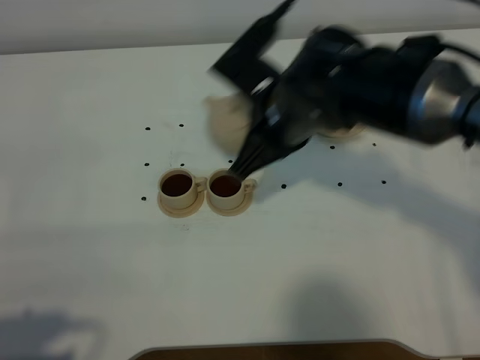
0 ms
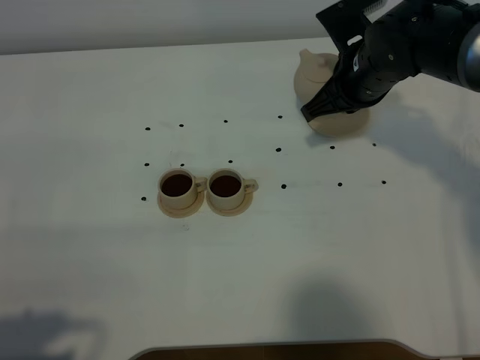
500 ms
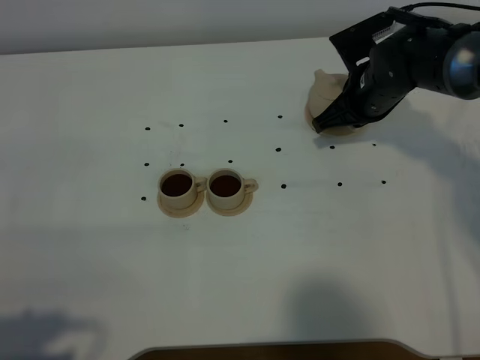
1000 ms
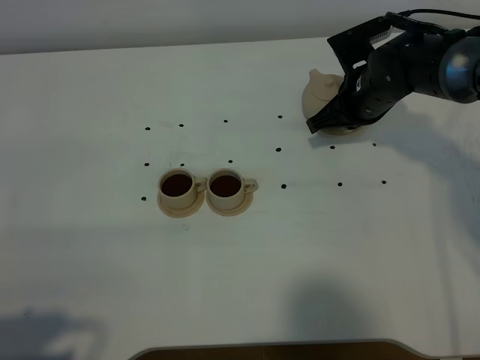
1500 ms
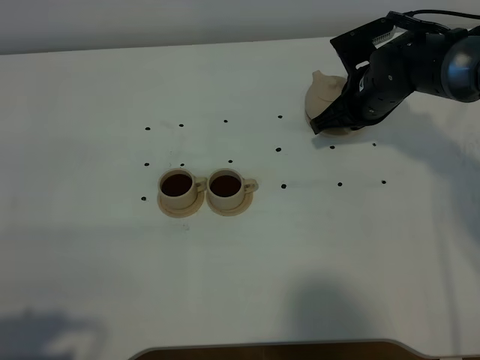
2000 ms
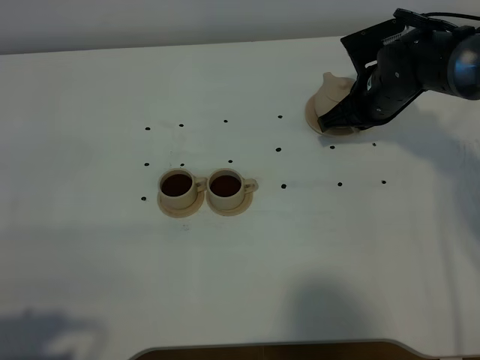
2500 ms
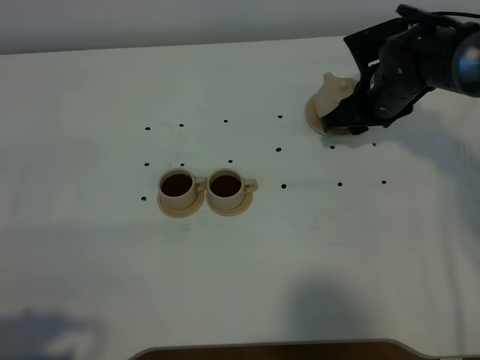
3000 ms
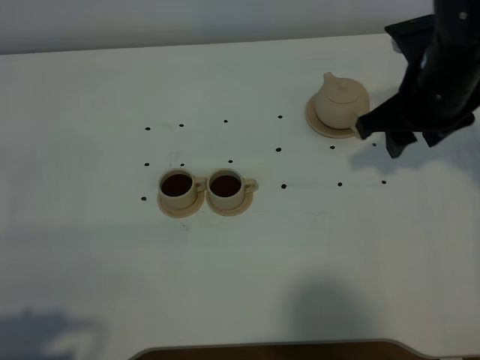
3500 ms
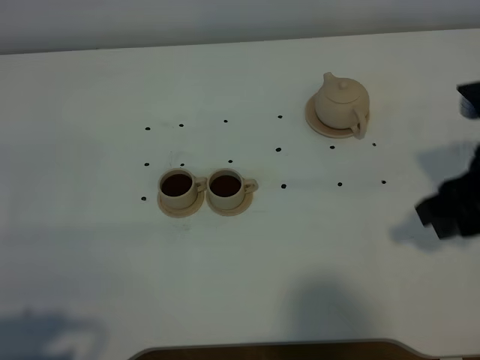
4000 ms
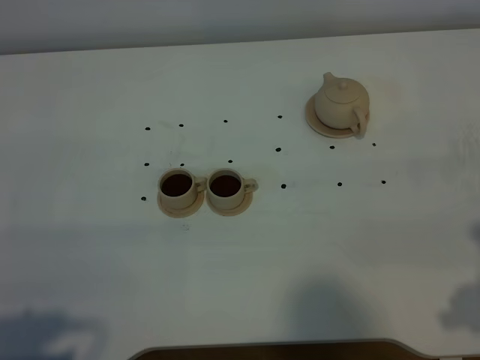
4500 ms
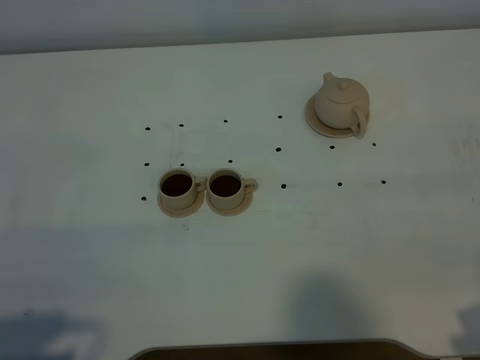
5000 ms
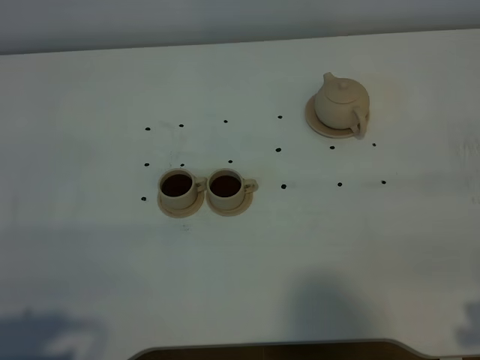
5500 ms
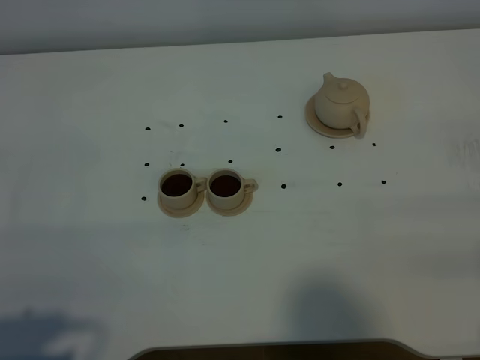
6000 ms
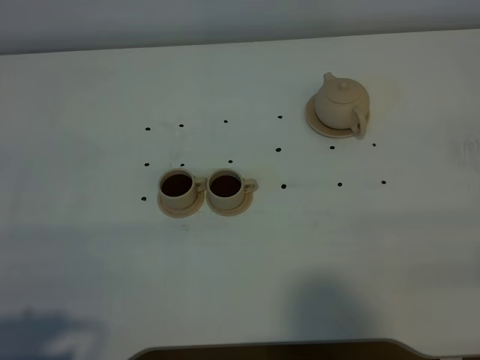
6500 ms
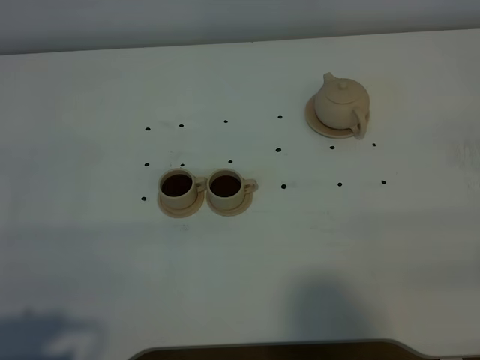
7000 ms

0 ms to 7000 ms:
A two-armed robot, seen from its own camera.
Task of the whole recording: grasp the brown teapot and pour the tea into the two brown teacups one by one, put the brown teapot back in its original place.
0 ms to 2000 ms: The right gripper is displaced to the right, downward and forward by roughly 15 cm.
2000 ms to 3500 ms: The right gripper goes some 15 cm upward and backward, and opens.
3500 ms to 5000 ms: The right gripper moves backward, some 25 cm.

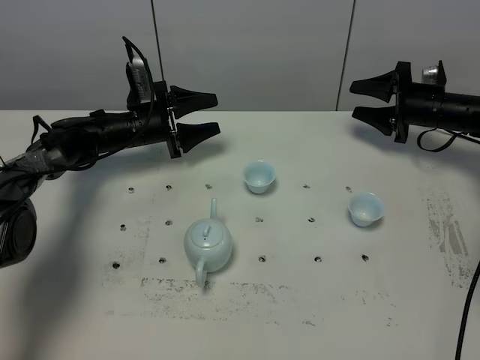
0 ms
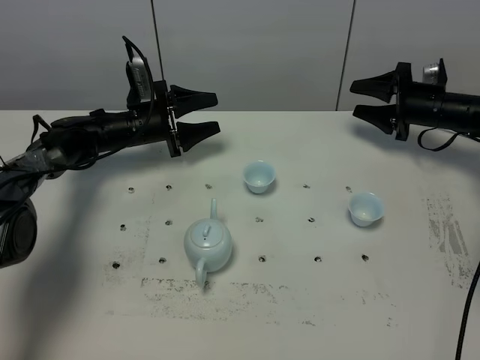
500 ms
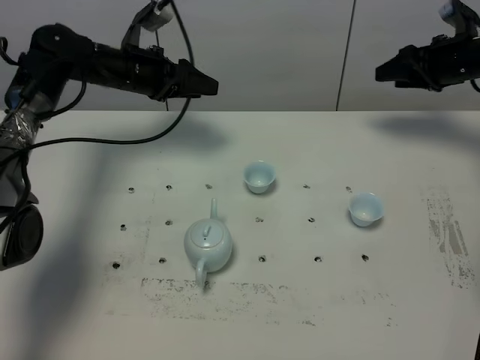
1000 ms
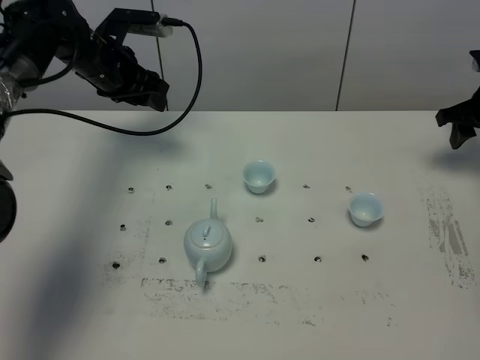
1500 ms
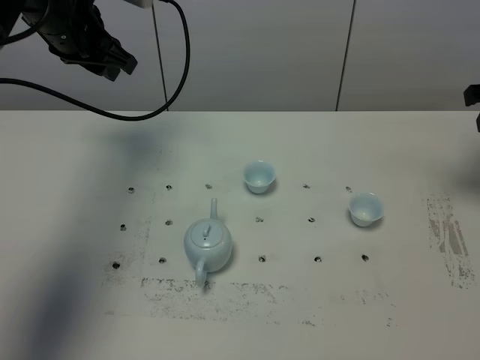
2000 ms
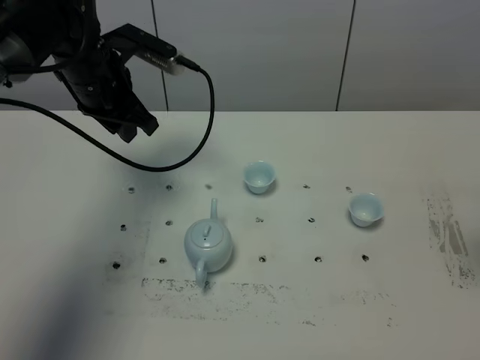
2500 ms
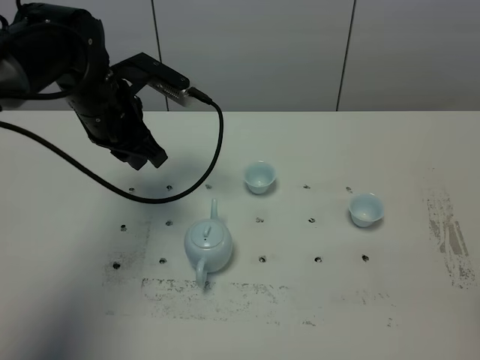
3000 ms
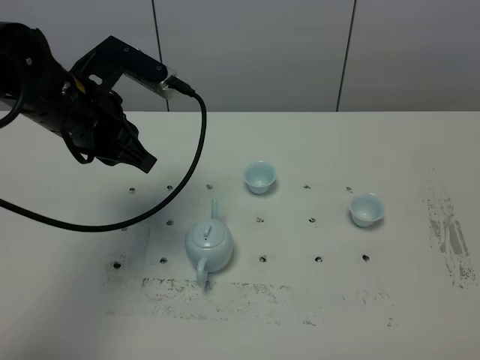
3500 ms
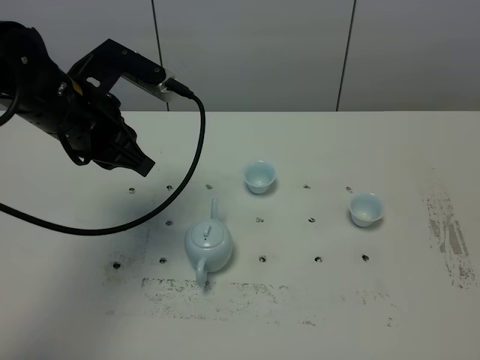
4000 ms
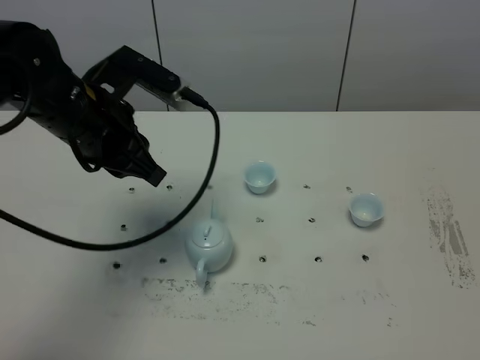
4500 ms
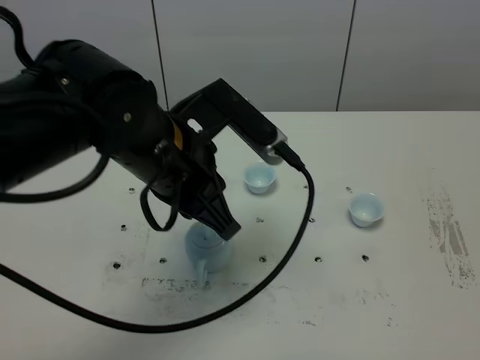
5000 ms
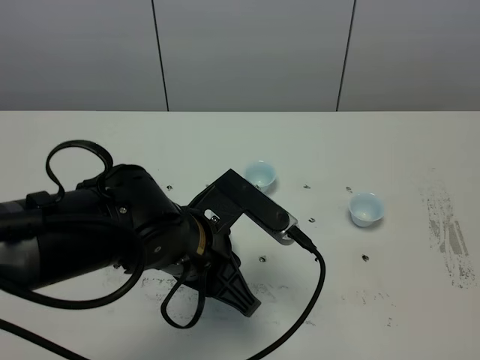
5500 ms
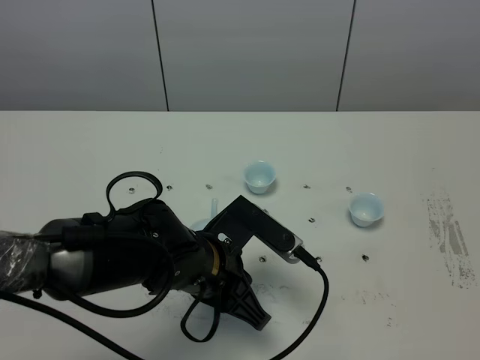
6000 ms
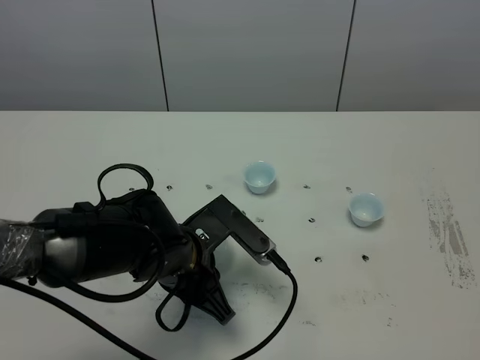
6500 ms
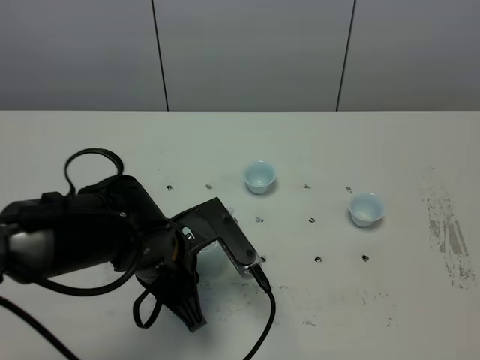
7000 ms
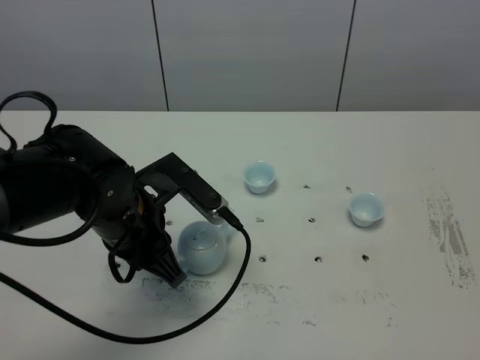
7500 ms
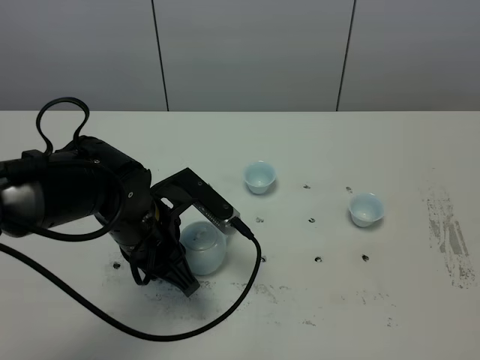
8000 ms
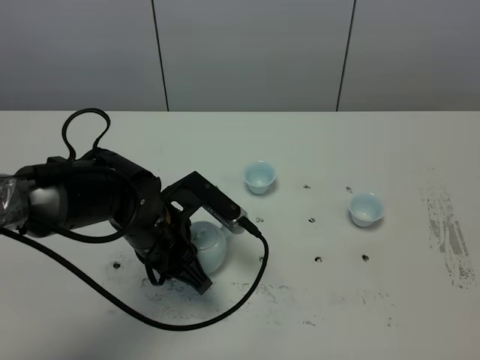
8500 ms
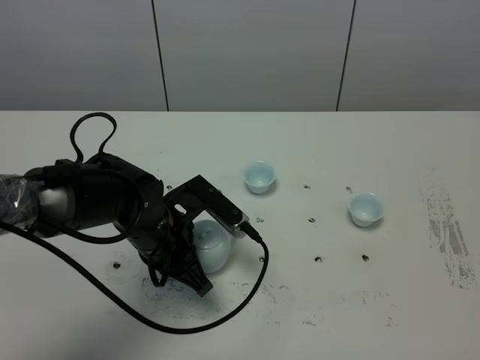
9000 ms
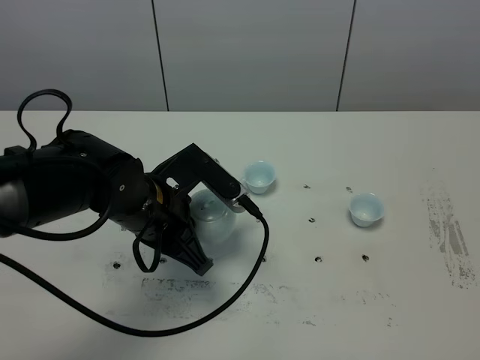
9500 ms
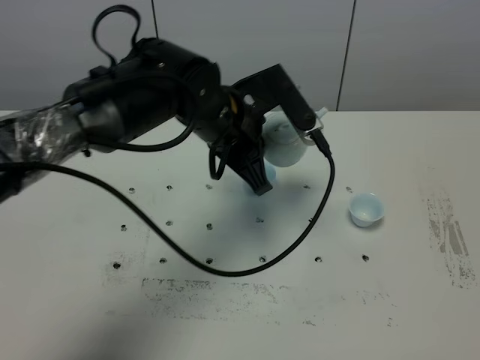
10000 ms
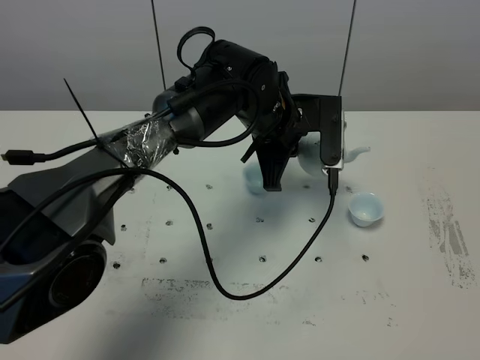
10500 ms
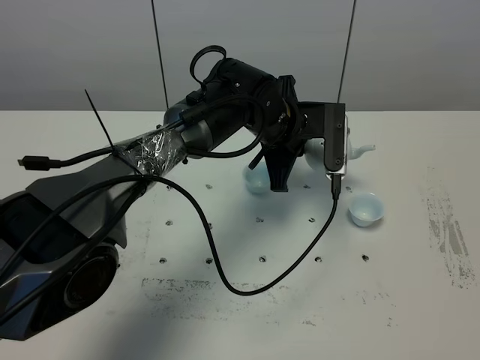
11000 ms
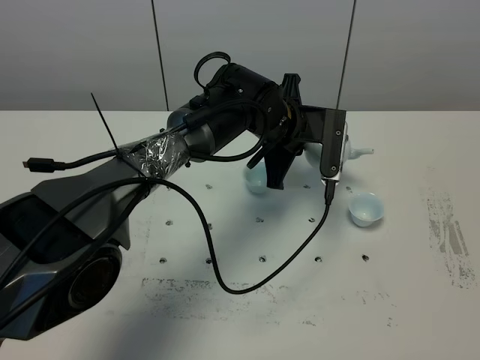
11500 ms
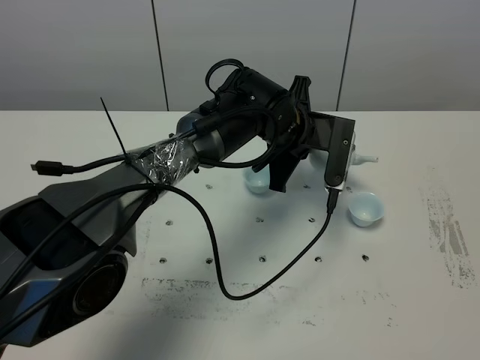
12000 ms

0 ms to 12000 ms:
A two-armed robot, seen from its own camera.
Task of the whole recording: grasp the blue porcelain teapot and pour the tea into the two blue porcelain teacups one by one, put the blue porcelain teapot back in its original place.
Step, 0 ms to 9000 ms: Pick up the teapot with the left gripper.
0 ms to 2000 ms: The right gripper is displaced upward and backward by roughly 20 cm, while the left gripper travels upward by about 25 cm, and closes.
2000 ms to 4000 ms: The left gripper is displaced backward by about 15 cm. The right gripper shifts roughly 40 cm backward.
4000 ms to 6000 ms: The left gripper goes approximately 20 cm to the right, downward and backward; the right gripper closes.
6000 ms to 8000 ms: The left gripper goes approximately 5 cm to the left.
8000 ms to 10000 ms: The left gripper moves to the right, forward and upward, about 15 cm.
10000 ms to 12000 ms: The left gripper moves to the right, downward and forward, approximately 10 cm.

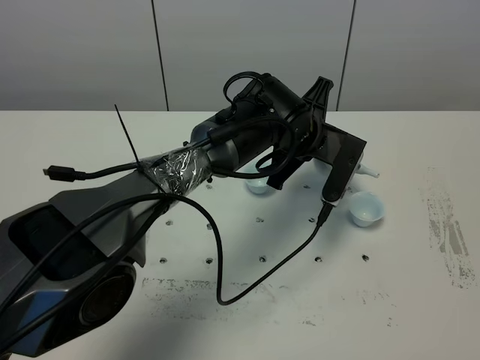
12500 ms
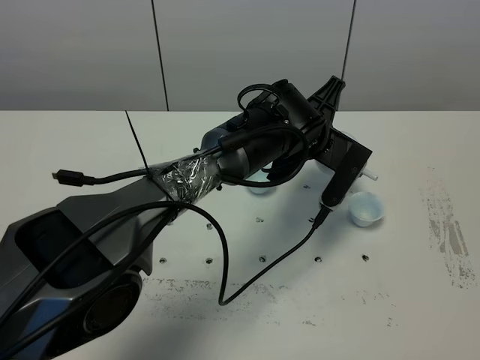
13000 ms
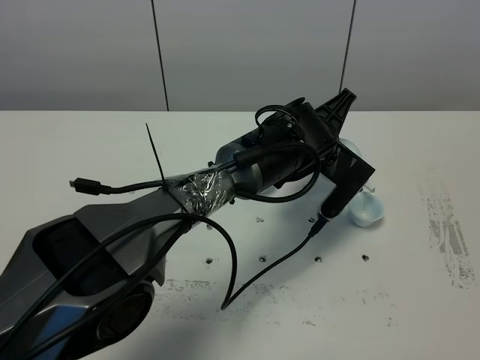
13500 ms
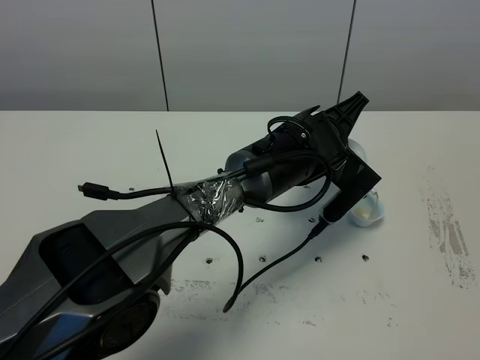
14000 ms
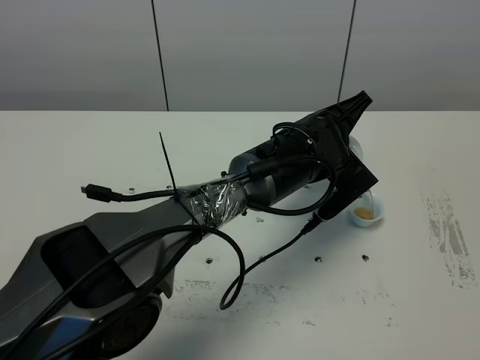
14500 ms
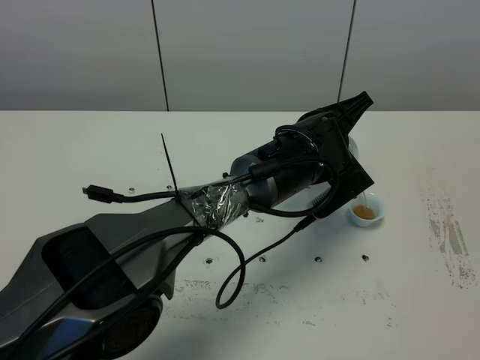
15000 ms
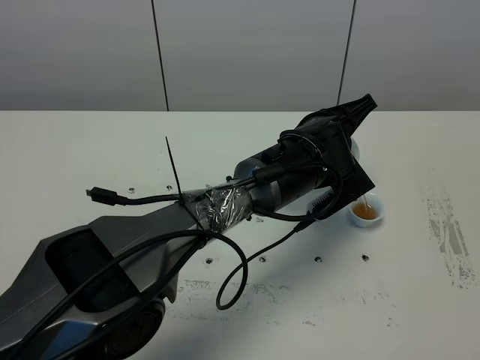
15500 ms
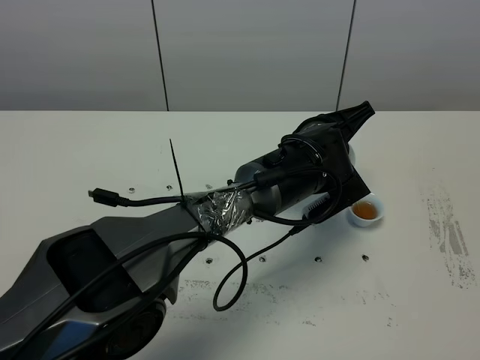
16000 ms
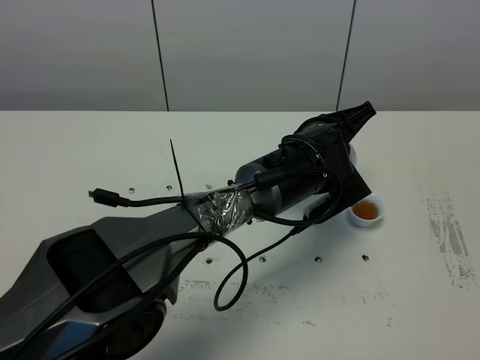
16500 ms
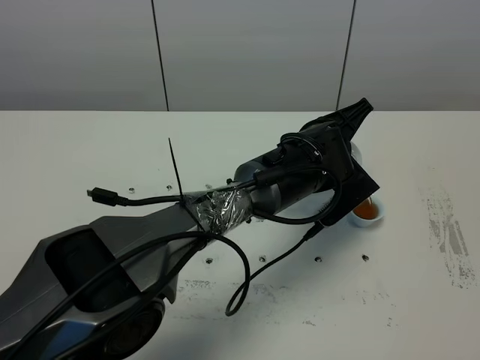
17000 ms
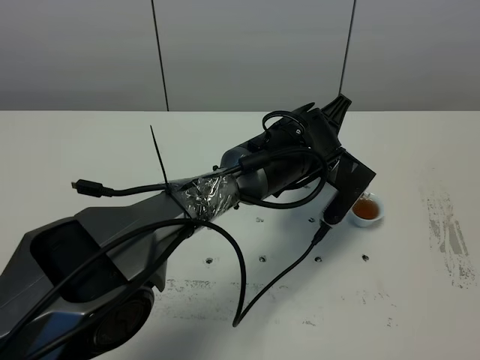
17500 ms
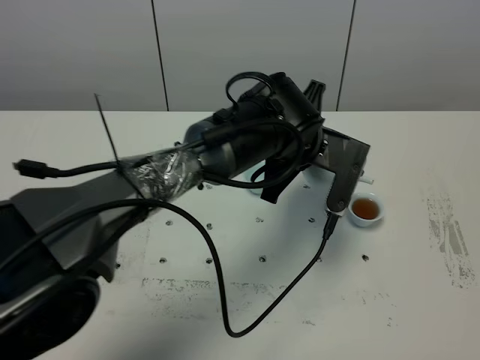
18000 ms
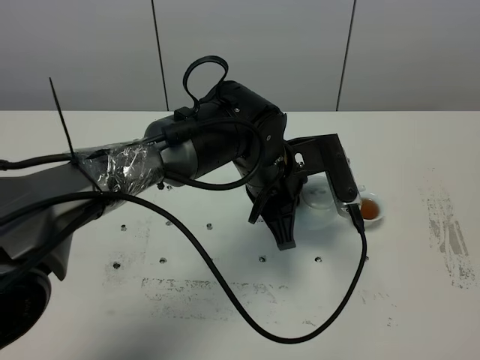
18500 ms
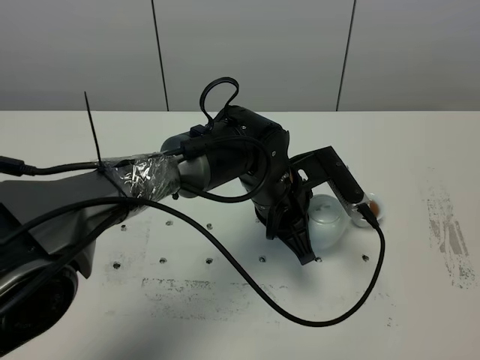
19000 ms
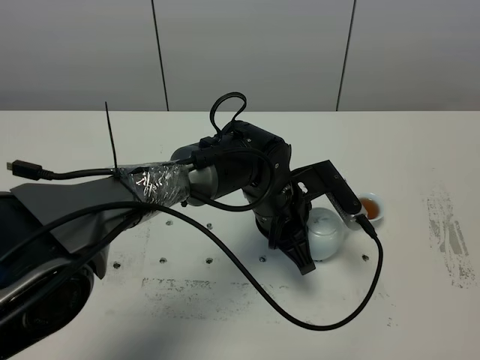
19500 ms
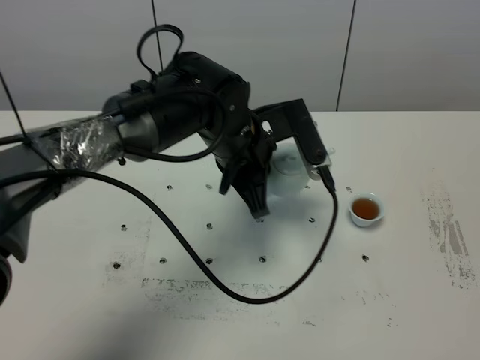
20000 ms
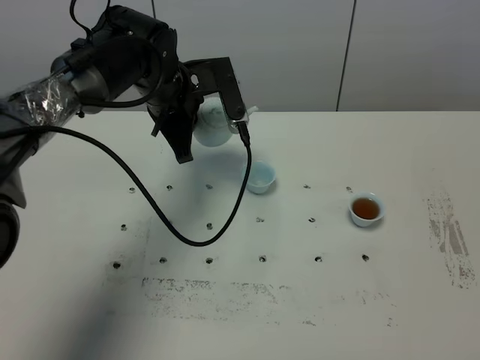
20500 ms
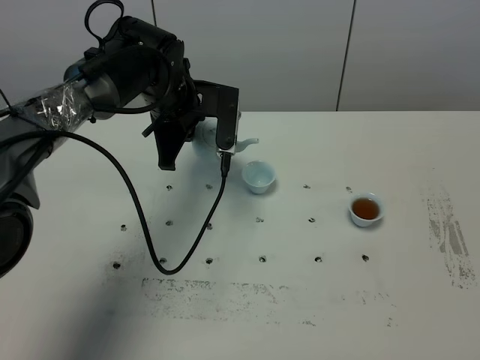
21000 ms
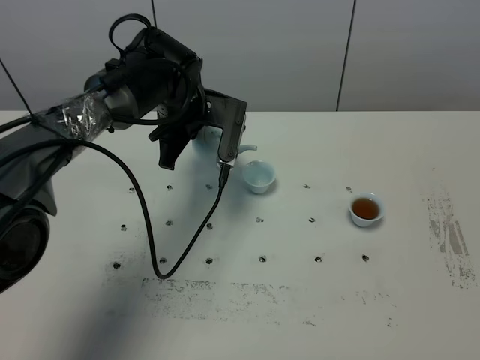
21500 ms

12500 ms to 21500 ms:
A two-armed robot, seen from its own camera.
Task of the whole recording: grasp the blue porcelain teapot and pour the tea into the two blue porcelain teacups one by one, put the blue porcelain teapot back in its original place.
14500 ms to 17000 ms: The grippers stay close to where they were, moving slightly.
17000 ms to 19500 ms: The left gripper is displaced to the left by about 5 cm.
19500 ms to 21500 ms: The left gripper heads to the left, forward and upward, covering roughly 20 cm.
